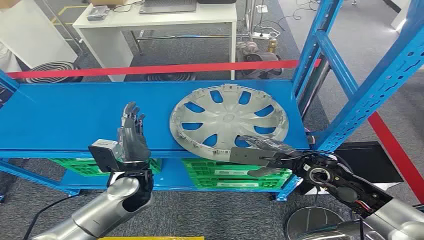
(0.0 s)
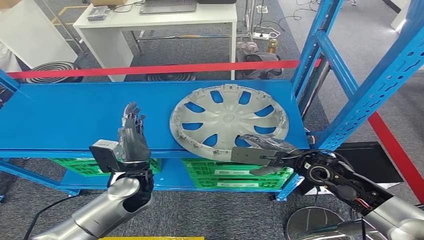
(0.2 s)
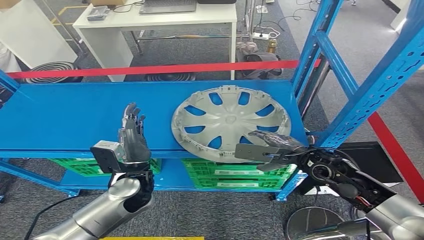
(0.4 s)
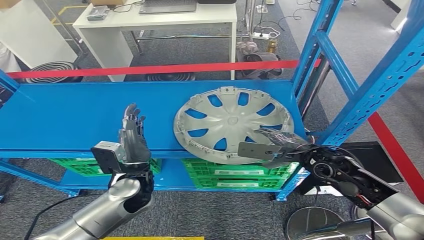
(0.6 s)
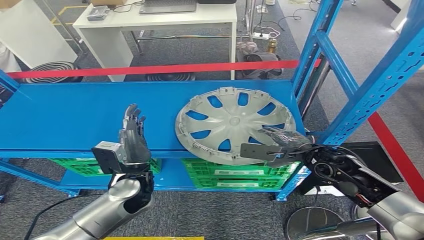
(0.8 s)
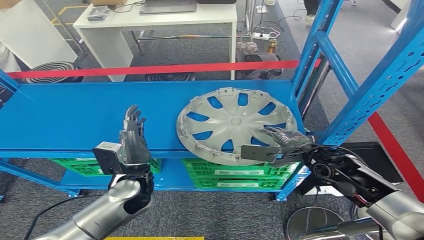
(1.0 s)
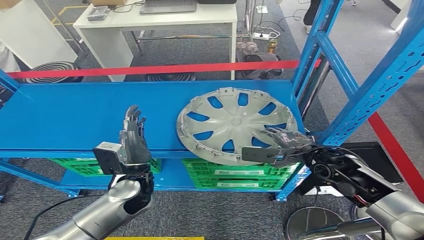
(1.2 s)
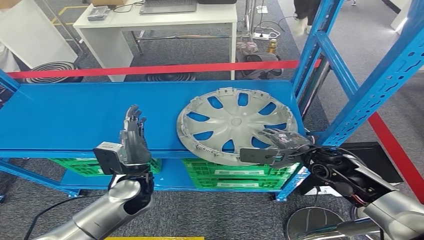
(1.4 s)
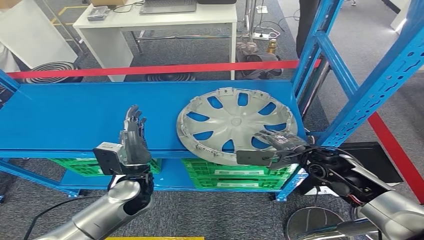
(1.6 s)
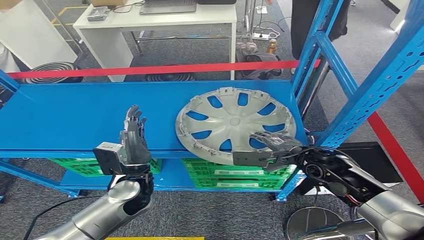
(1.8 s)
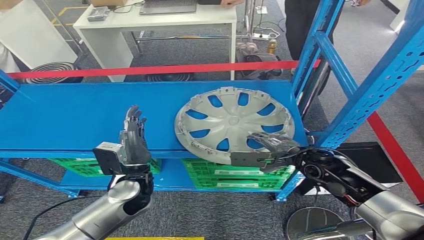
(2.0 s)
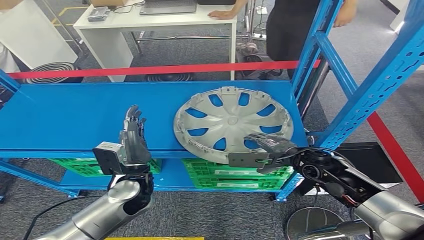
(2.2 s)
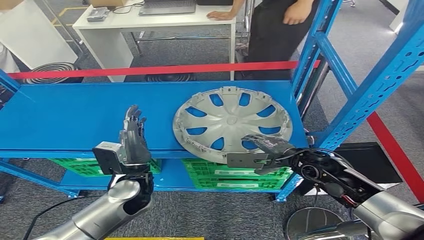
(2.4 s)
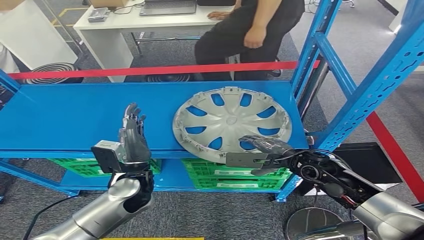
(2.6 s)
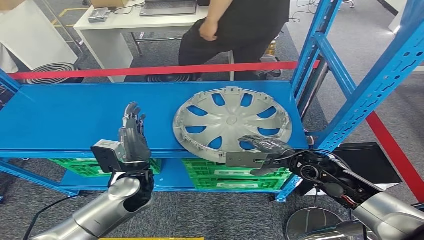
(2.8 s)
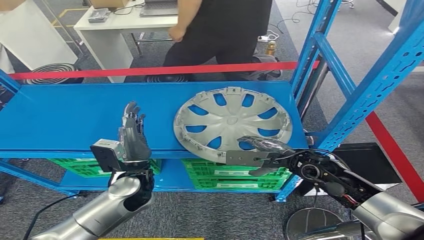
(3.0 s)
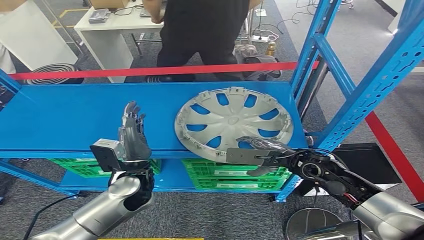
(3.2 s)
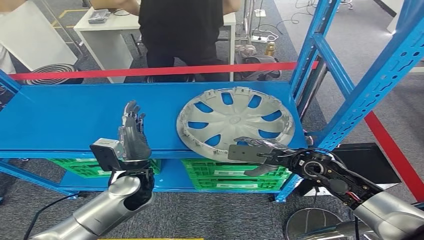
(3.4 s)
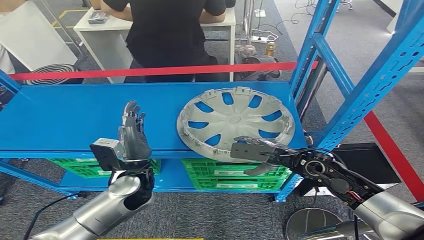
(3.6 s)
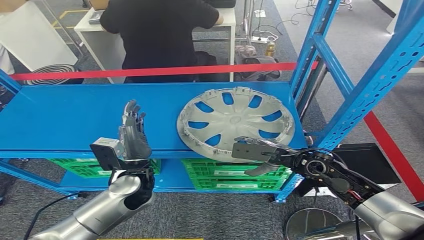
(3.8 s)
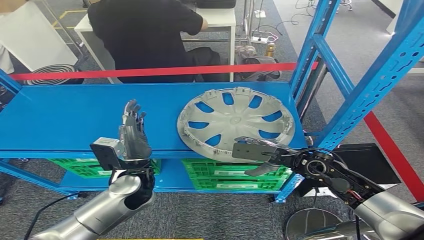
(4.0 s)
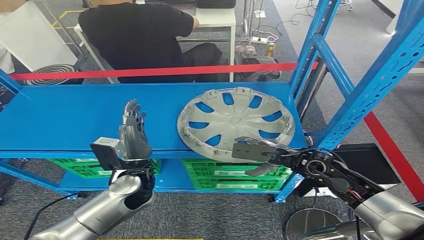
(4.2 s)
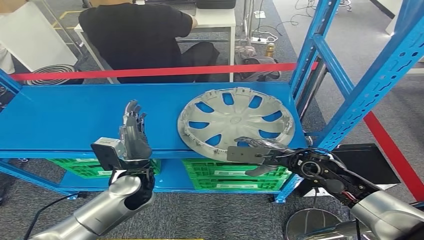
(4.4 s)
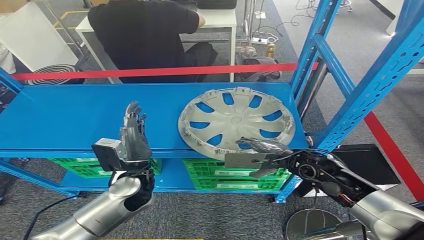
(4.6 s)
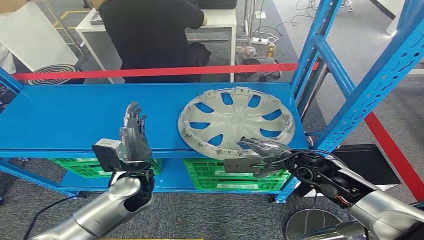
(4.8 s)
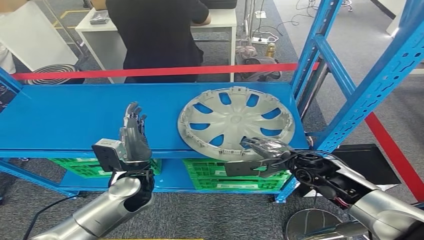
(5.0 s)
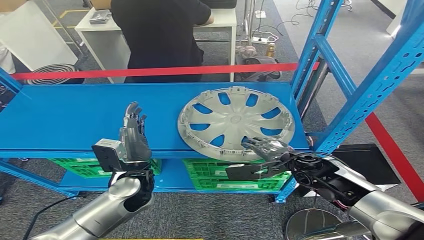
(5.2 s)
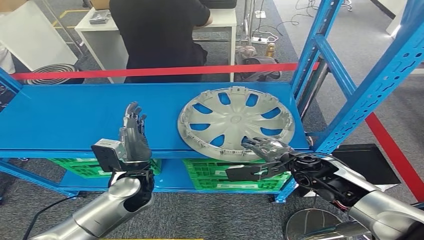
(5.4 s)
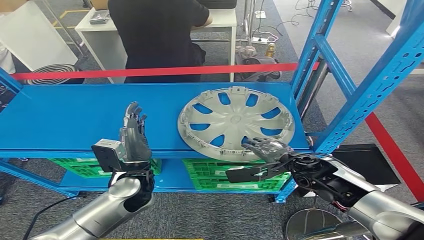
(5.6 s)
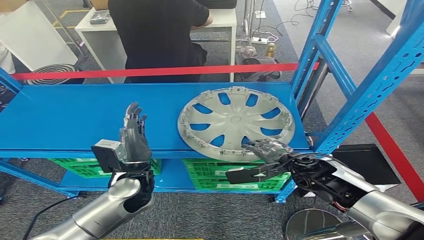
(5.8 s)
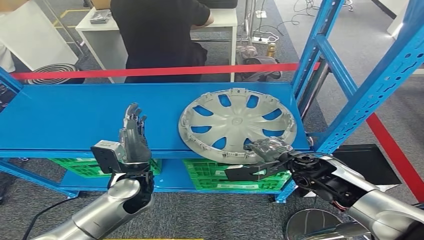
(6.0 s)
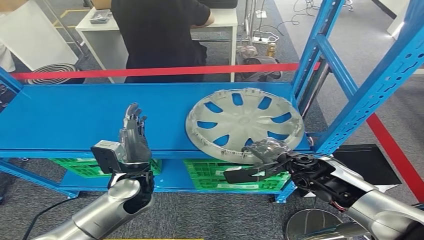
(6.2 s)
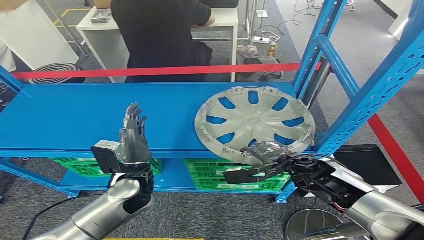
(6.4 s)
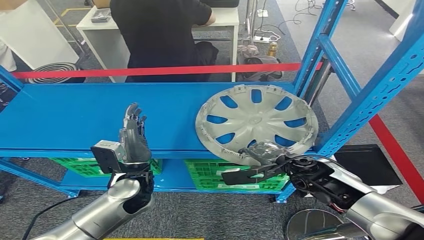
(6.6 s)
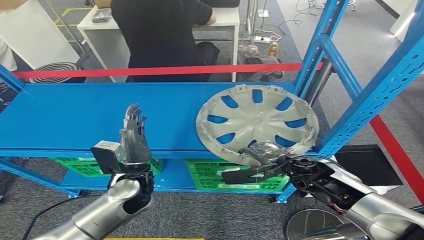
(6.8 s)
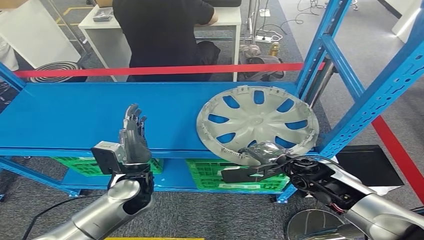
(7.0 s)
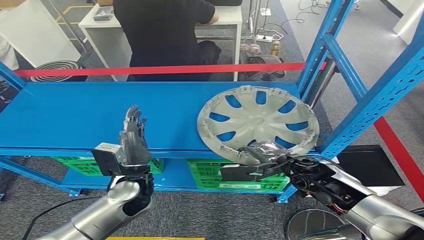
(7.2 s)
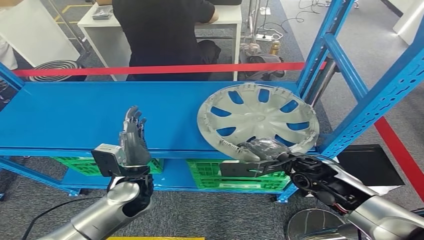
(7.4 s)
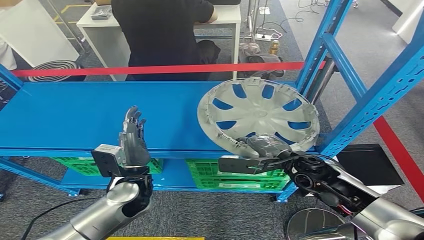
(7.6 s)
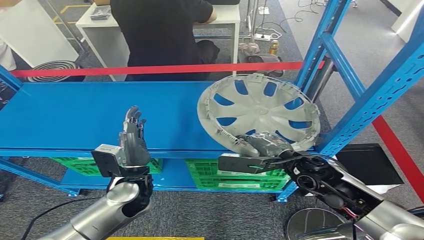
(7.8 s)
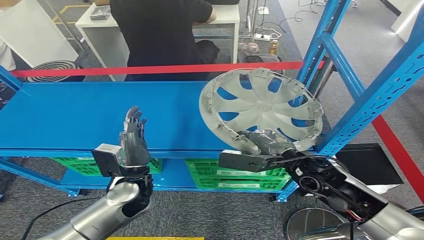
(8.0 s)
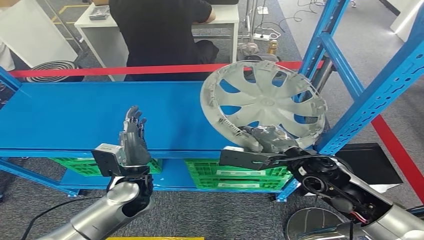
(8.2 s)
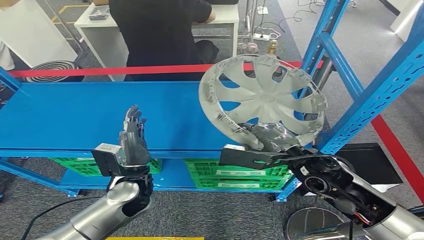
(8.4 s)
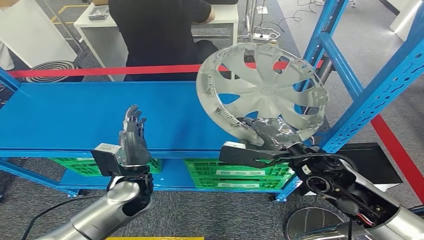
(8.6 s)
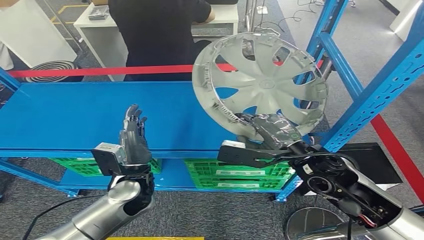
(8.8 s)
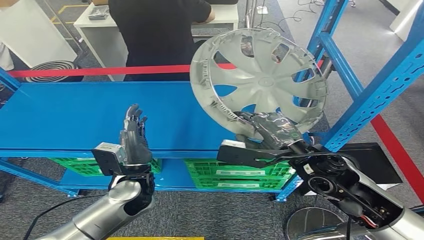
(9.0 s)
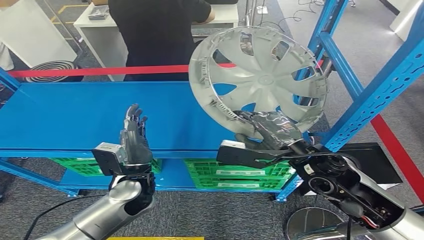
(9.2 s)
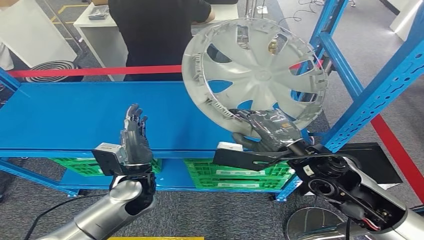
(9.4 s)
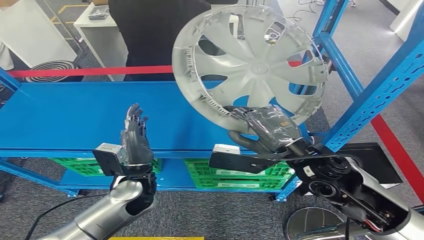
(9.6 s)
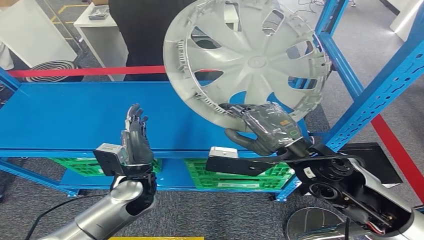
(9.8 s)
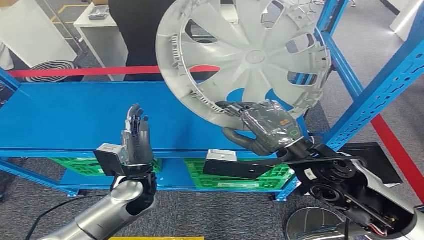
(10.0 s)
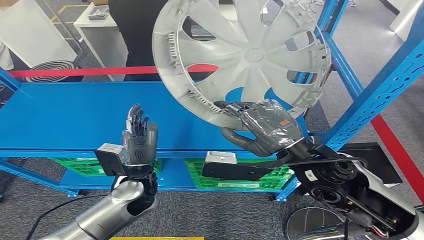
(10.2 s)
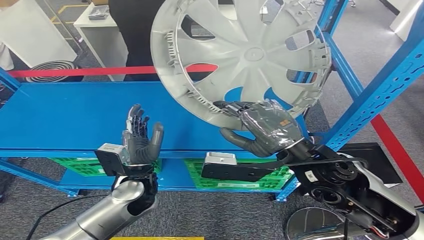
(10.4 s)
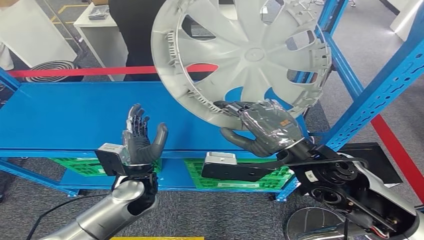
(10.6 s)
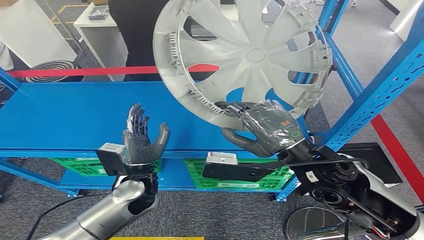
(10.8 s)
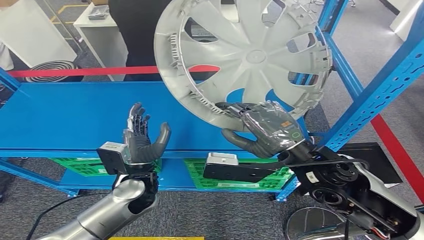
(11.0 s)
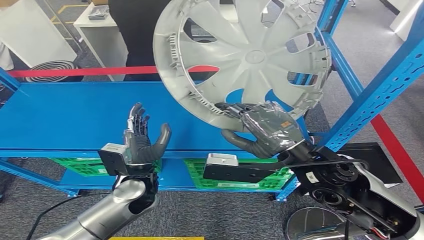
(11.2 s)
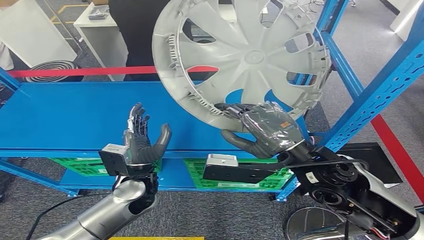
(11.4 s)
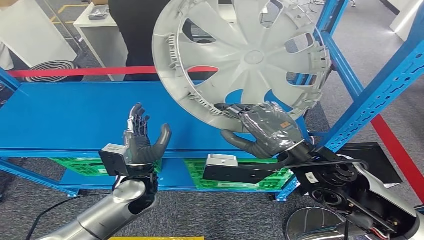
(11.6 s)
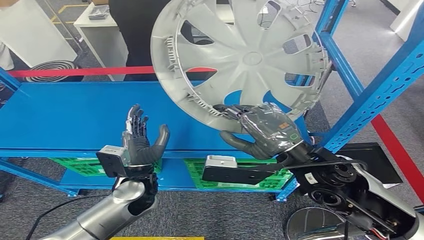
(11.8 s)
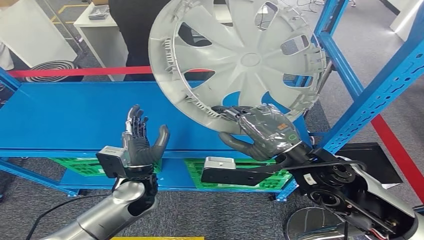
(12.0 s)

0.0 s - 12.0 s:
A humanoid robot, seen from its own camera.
Step, 0.0 s - 8.4 s: Take small components from the rack.
10.4 s - 12.0 s: The two hands keep their place.

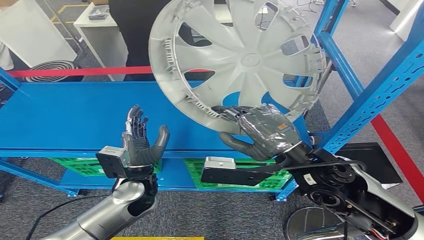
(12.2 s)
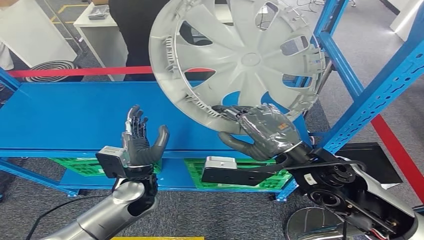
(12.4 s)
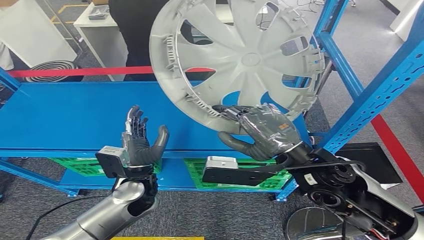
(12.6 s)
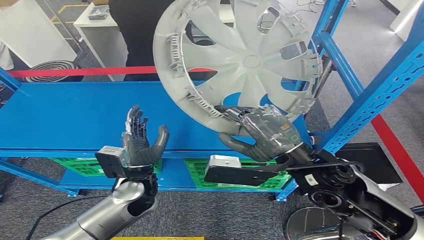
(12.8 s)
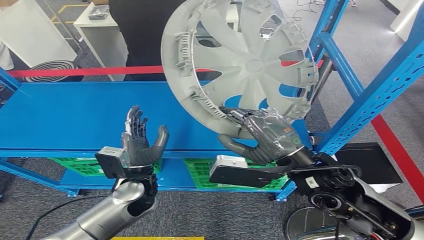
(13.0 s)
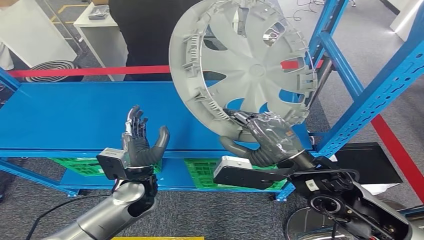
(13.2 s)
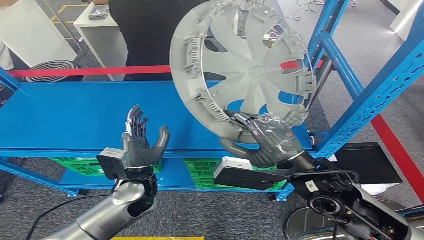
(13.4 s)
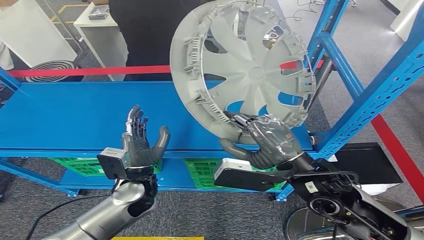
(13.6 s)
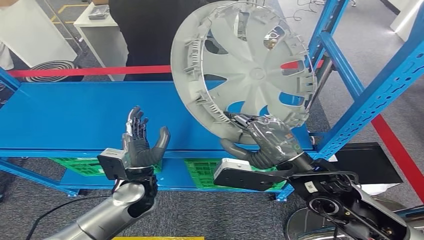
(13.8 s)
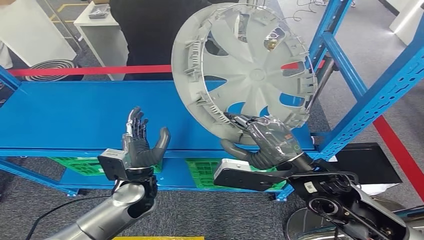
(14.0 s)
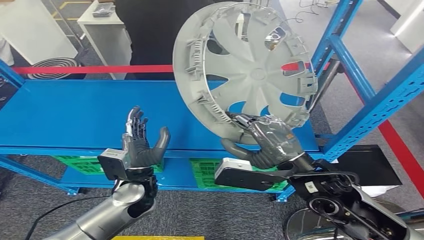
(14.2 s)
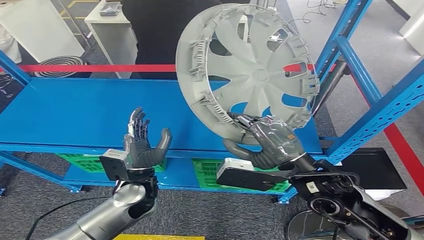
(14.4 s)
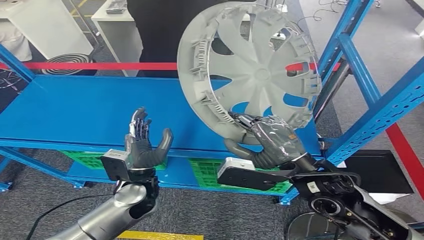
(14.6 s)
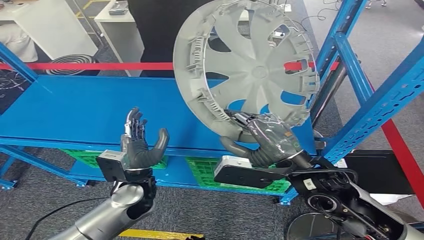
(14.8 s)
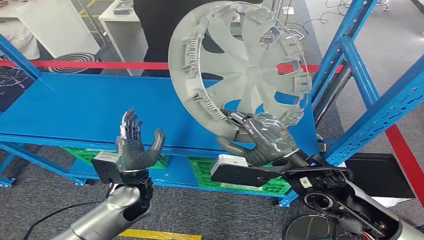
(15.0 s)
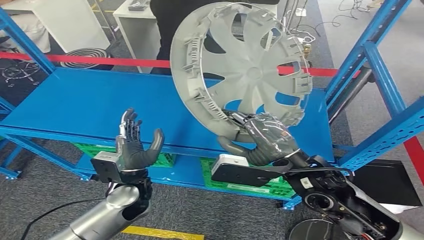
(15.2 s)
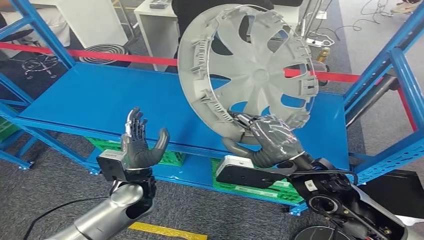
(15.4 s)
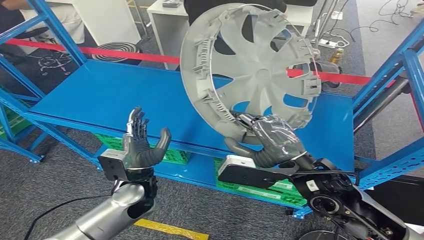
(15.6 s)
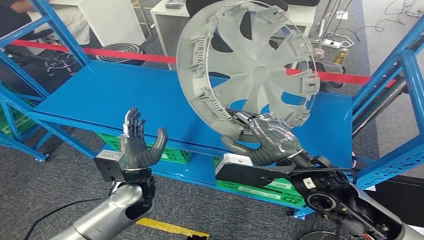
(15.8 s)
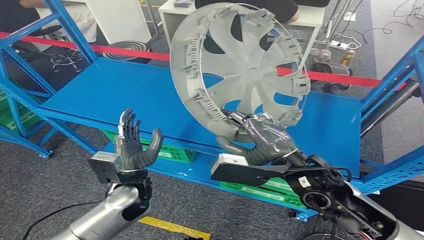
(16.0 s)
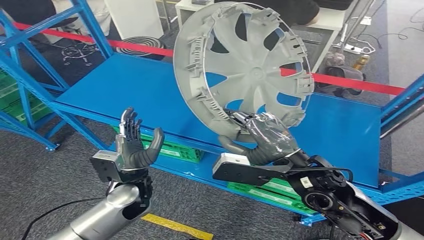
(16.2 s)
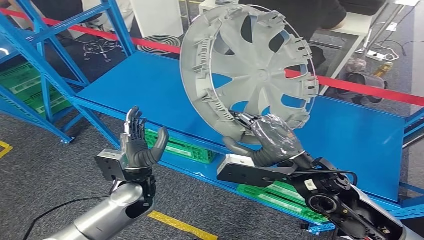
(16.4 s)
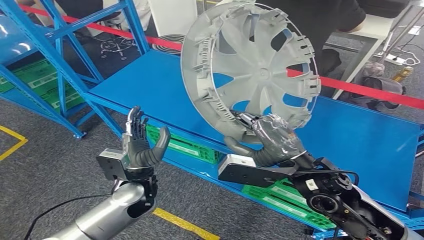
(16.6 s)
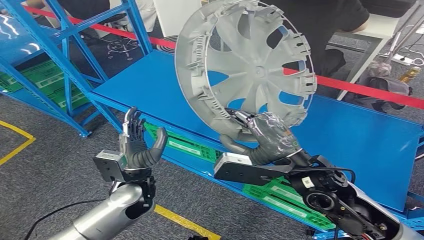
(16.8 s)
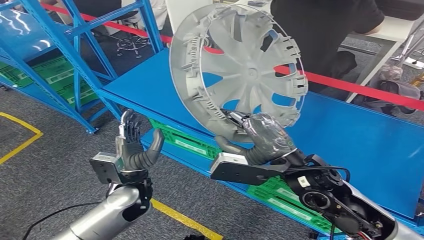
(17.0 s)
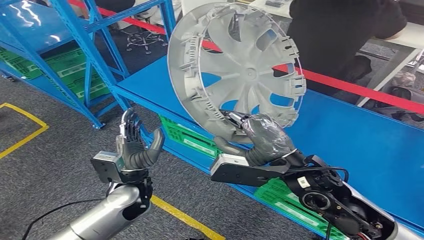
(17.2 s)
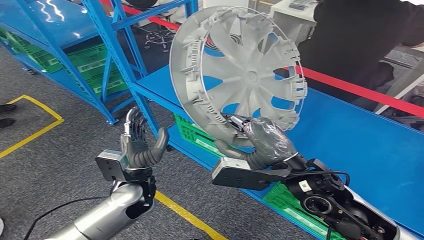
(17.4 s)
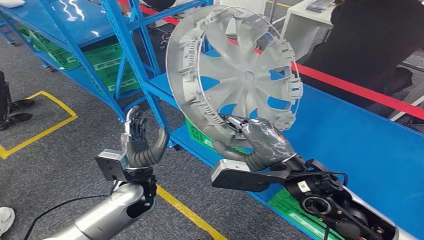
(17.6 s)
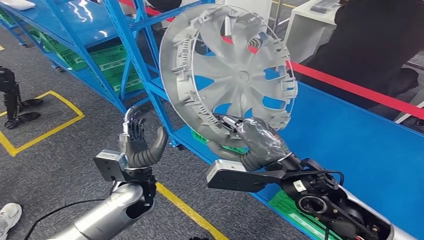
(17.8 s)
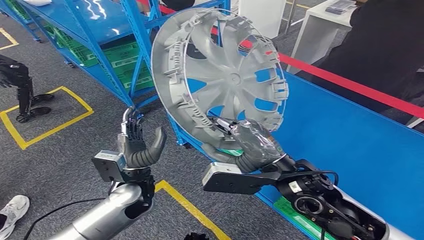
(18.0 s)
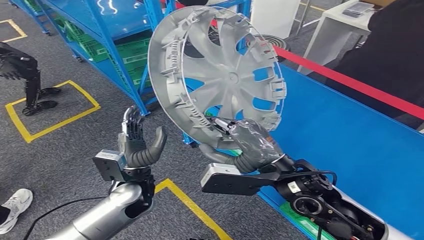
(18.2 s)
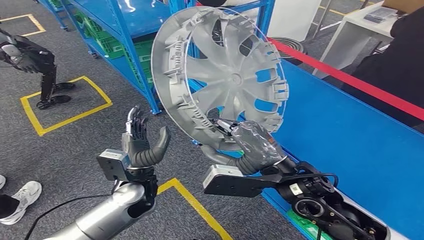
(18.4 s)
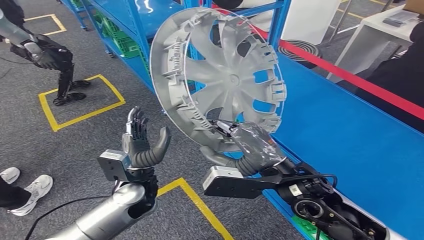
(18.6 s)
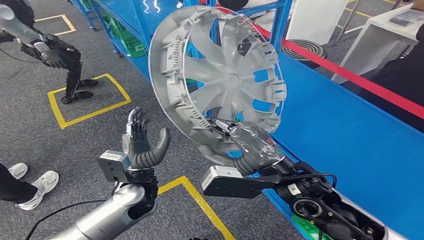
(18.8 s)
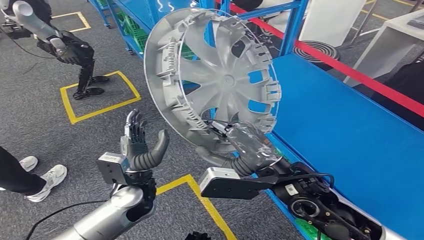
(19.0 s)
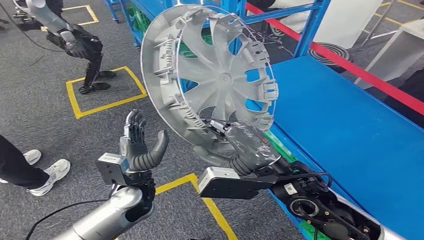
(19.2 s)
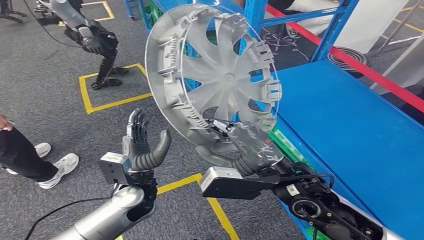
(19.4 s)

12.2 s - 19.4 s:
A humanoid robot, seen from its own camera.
12.2 s - 13.6 s: There are only small adjustments of the hands.
